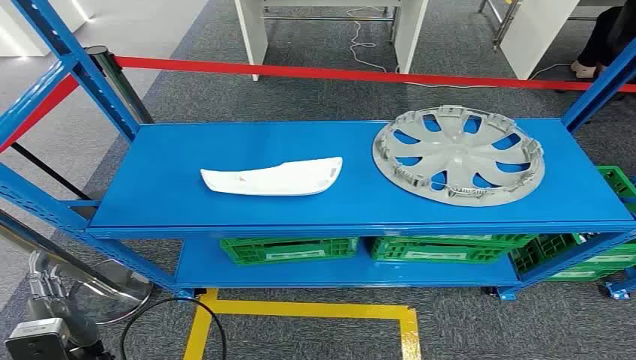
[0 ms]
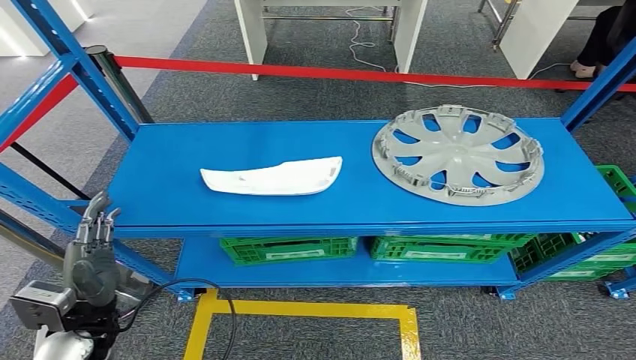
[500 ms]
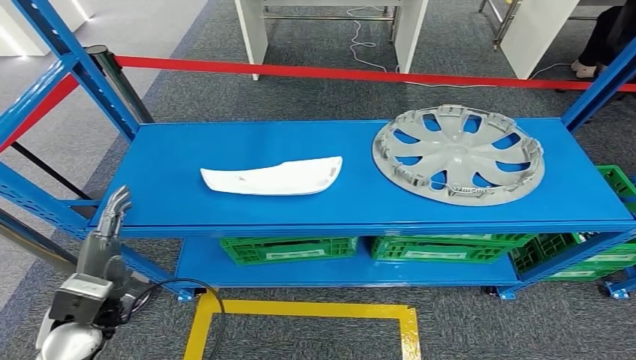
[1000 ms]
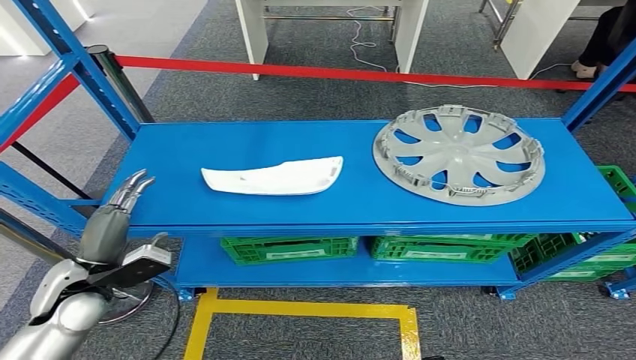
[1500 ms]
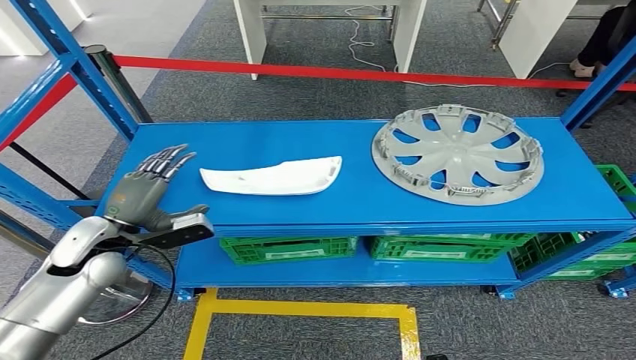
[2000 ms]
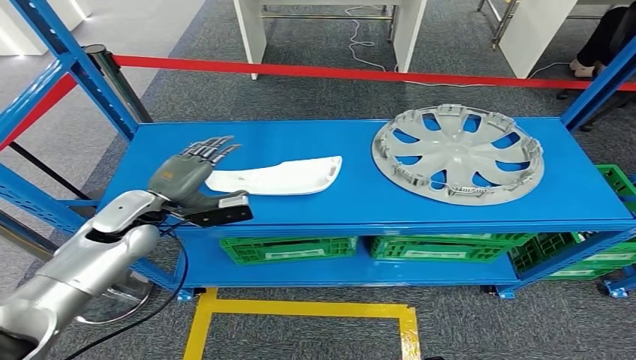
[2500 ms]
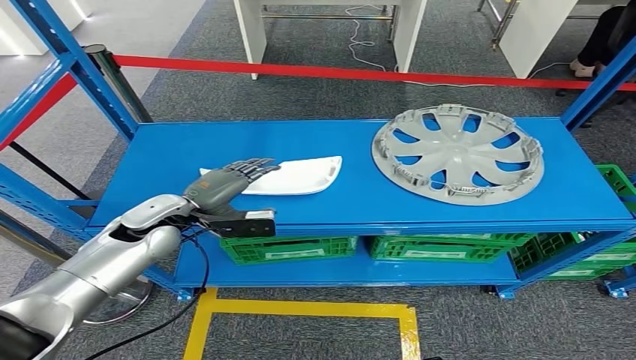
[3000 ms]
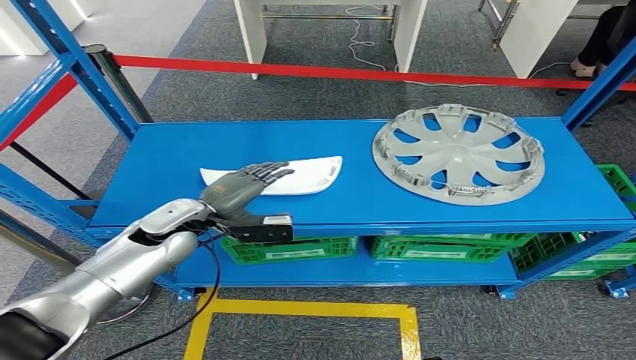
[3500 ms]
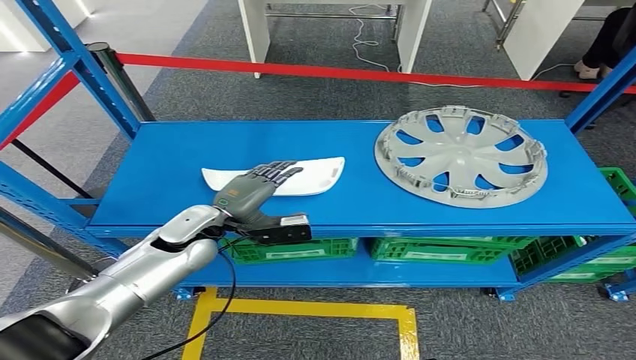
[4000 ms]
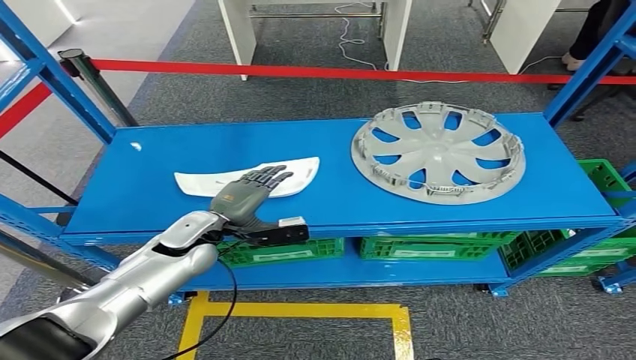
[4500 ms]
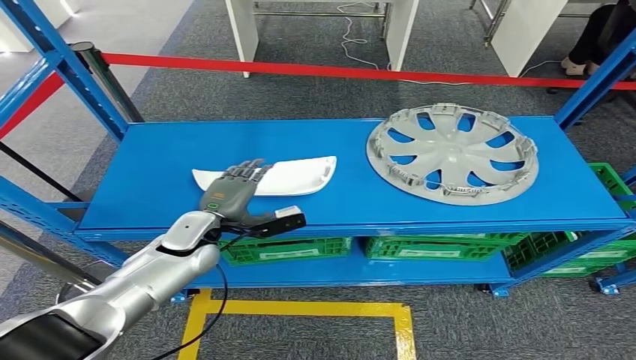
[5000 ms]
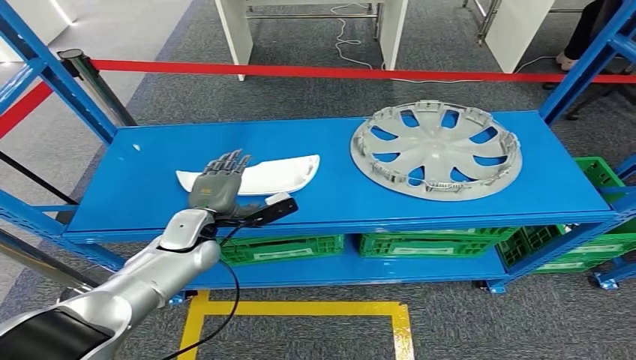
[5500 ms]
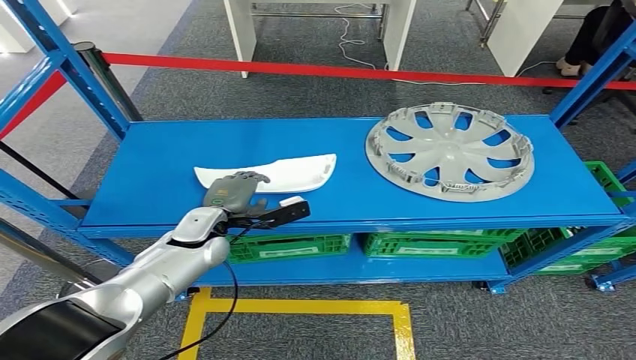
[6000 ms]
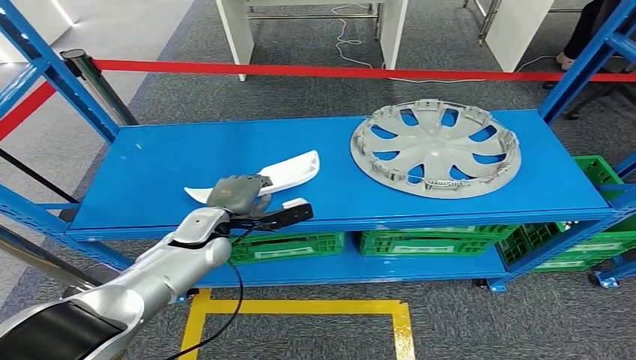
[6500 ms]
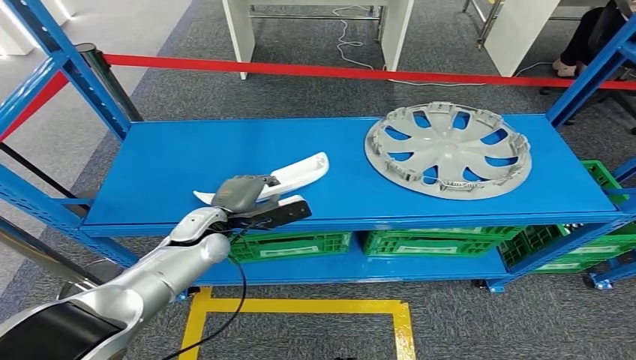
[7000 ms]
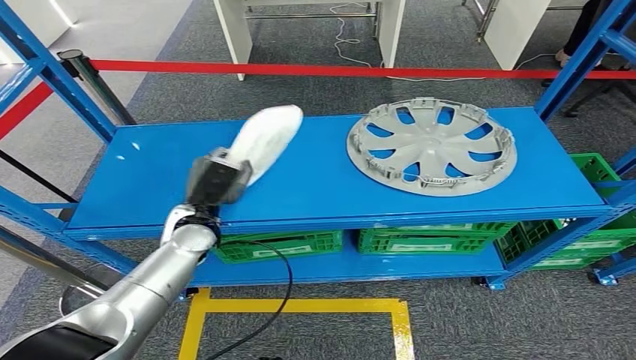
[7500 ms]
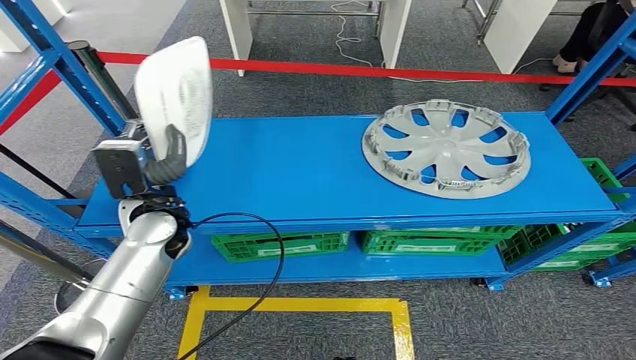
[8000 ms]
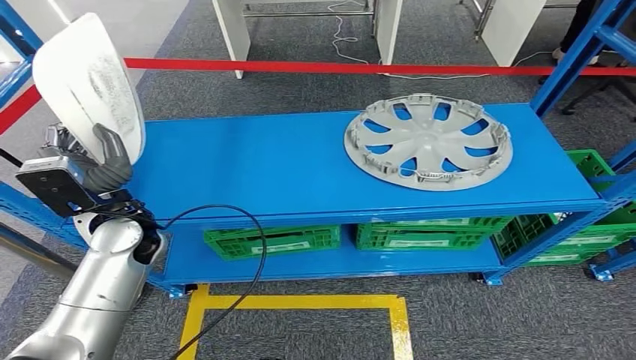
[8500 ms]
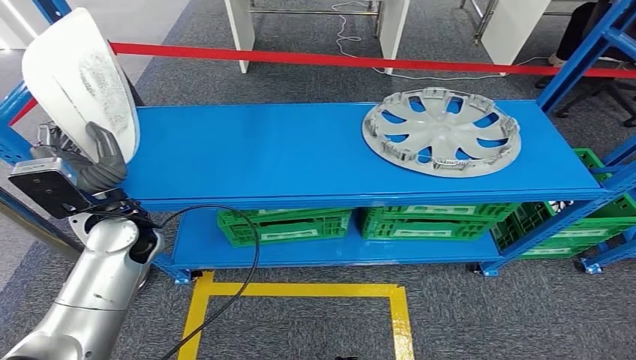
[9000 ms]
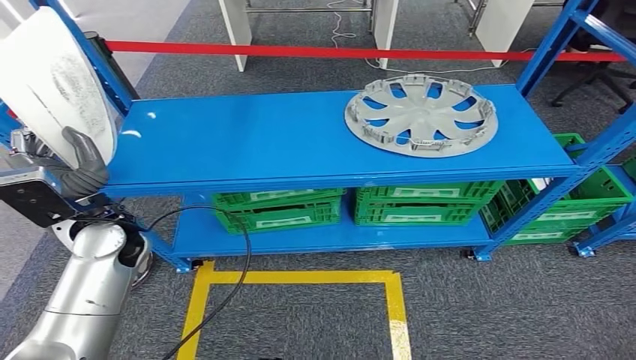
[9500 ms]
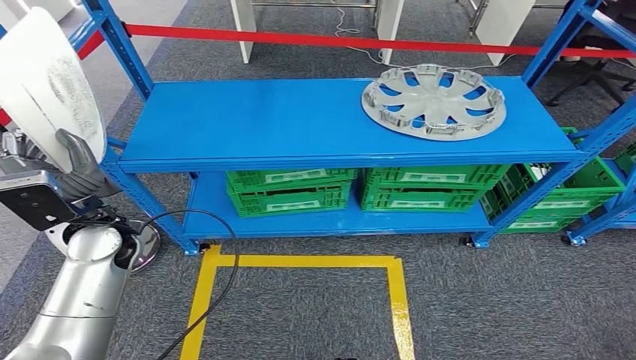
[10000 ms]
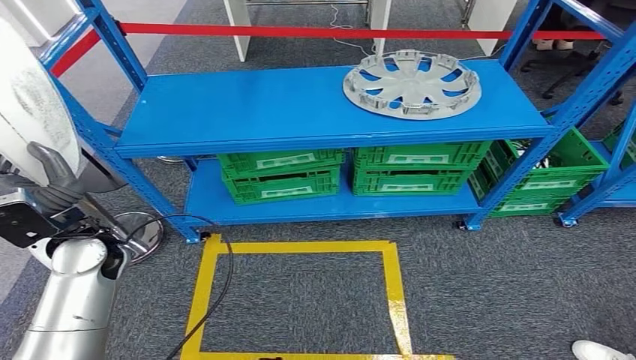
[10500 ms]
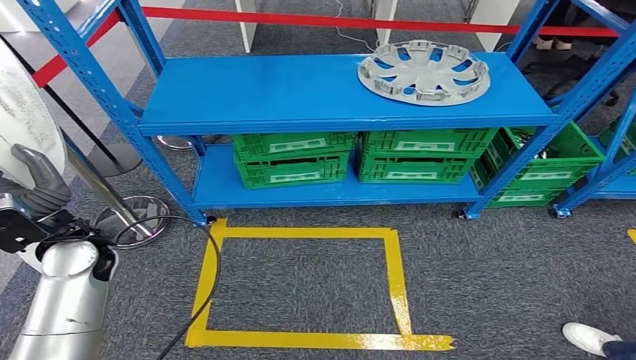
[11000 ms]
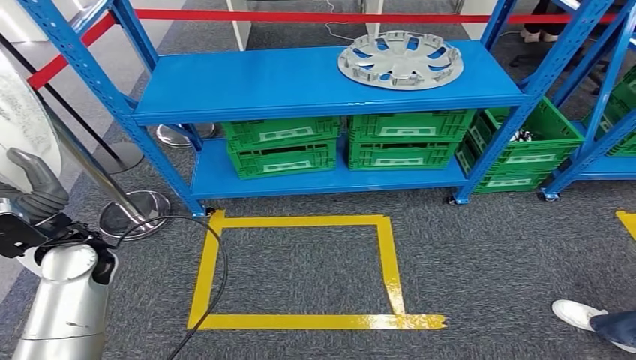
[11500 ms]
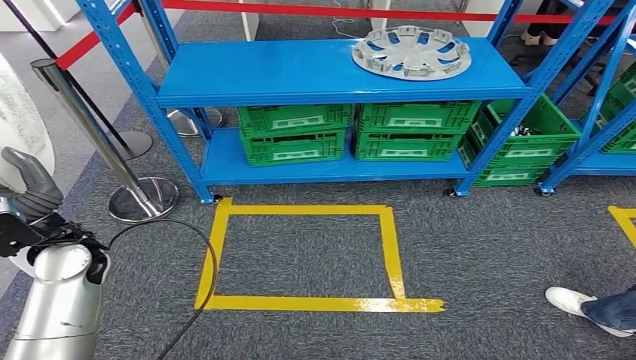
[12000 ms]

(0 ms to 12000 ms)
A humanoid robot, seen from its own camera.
Step, 0 ms - 10000 ms: Pick up the small component from the shelf.

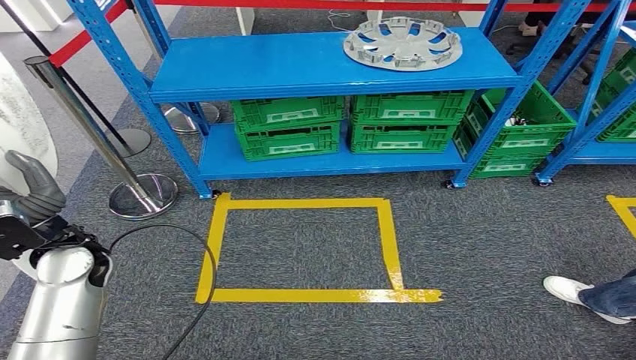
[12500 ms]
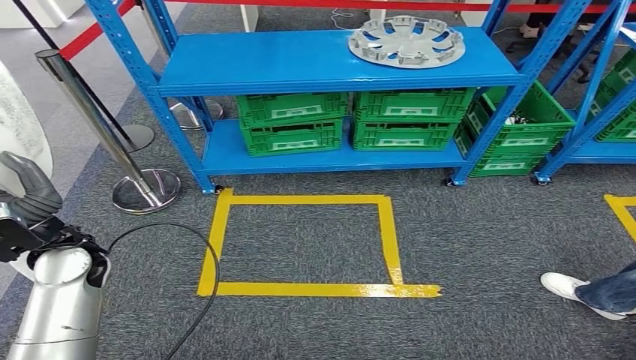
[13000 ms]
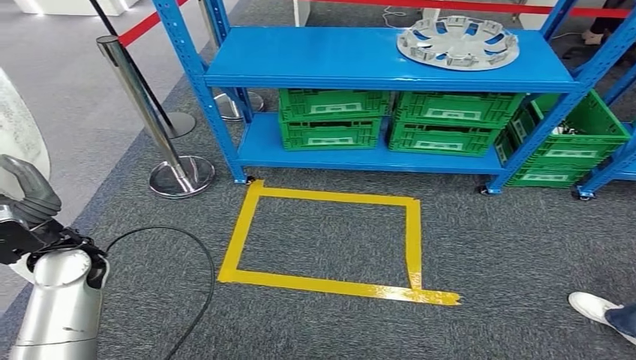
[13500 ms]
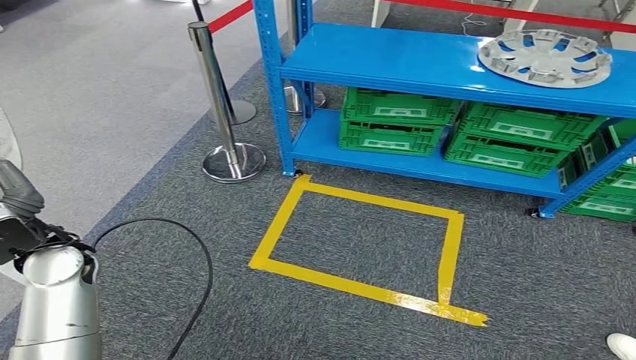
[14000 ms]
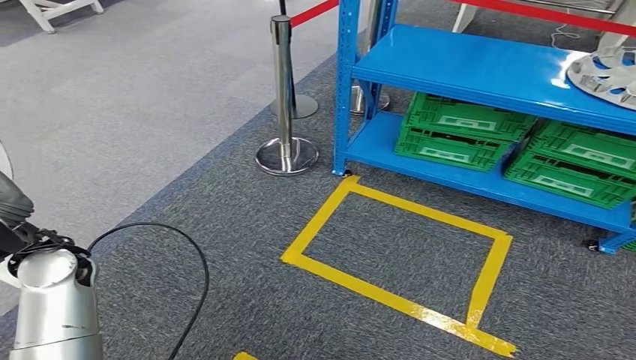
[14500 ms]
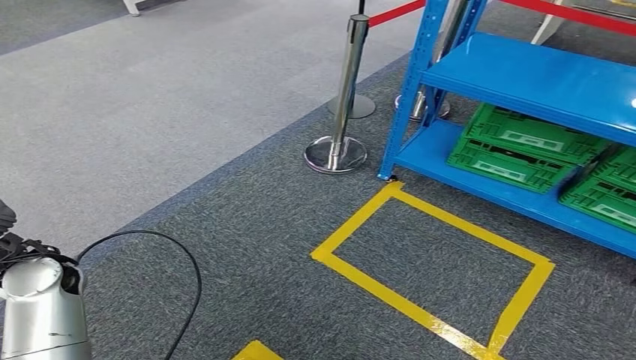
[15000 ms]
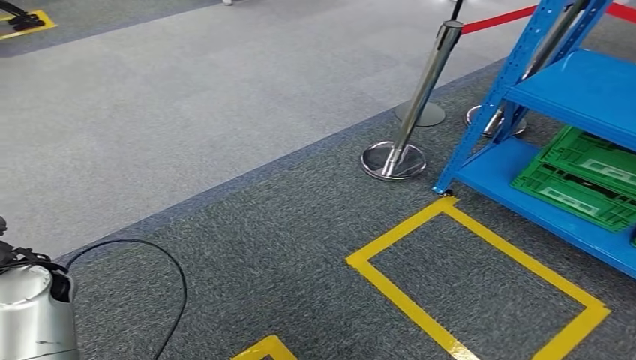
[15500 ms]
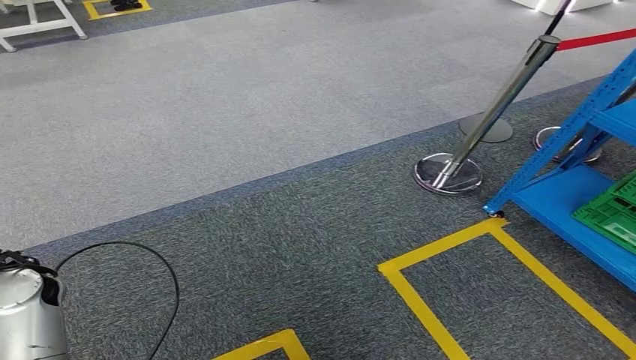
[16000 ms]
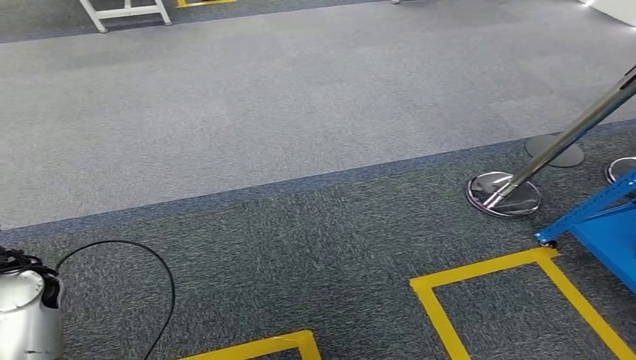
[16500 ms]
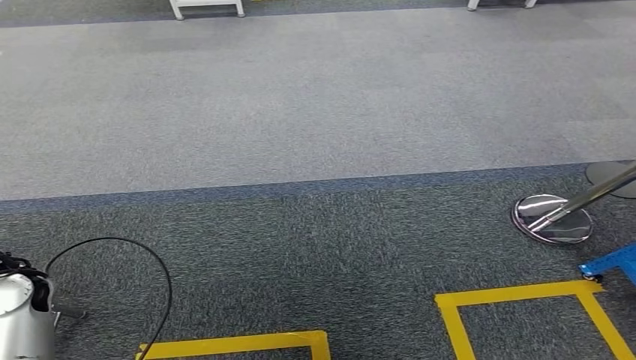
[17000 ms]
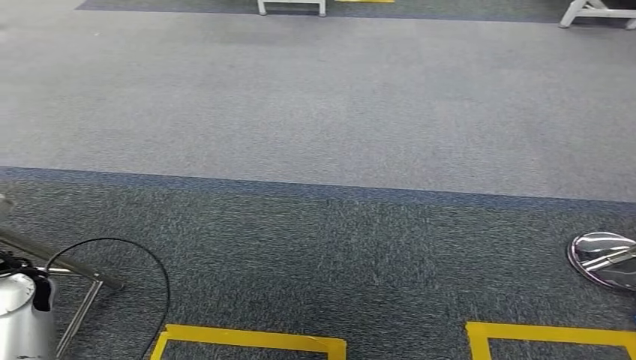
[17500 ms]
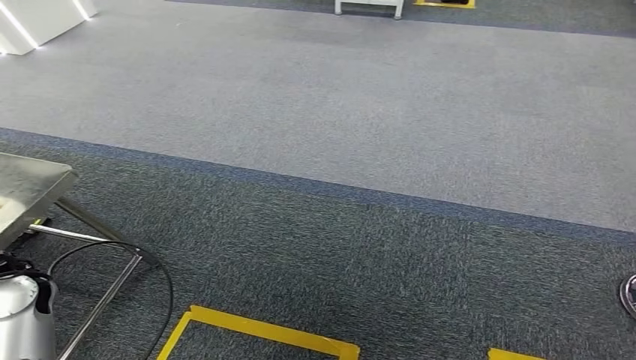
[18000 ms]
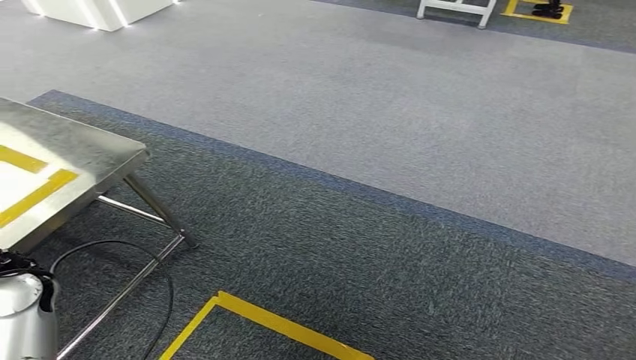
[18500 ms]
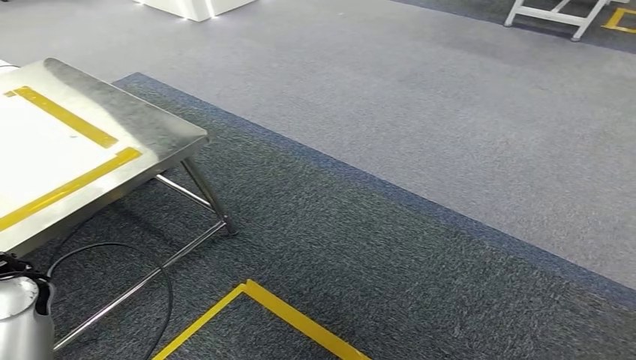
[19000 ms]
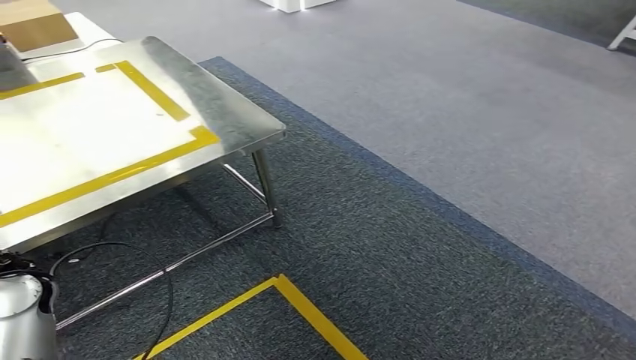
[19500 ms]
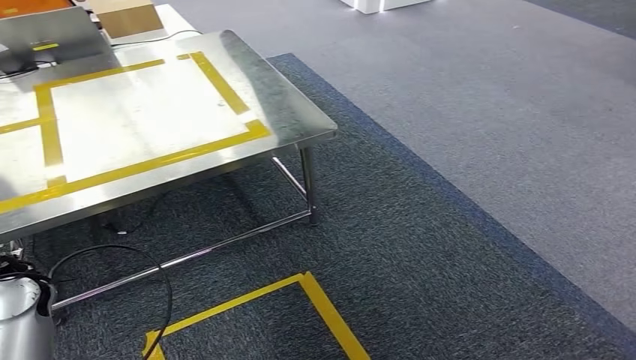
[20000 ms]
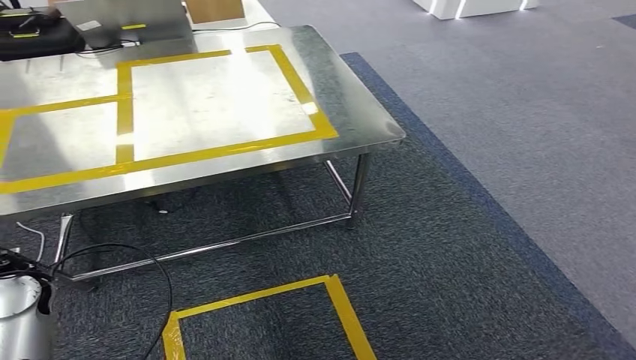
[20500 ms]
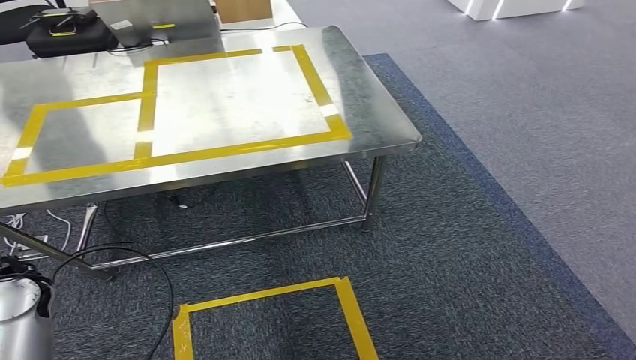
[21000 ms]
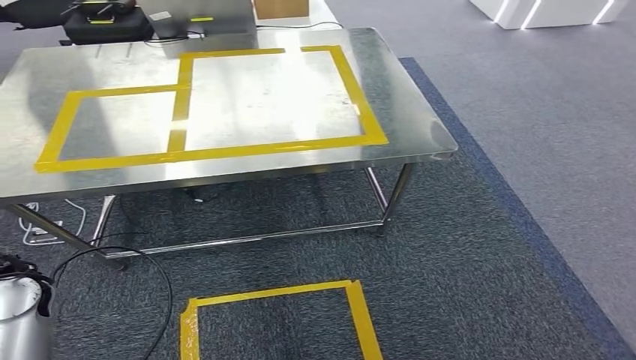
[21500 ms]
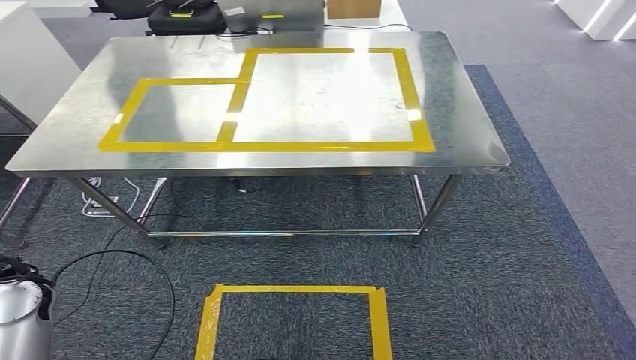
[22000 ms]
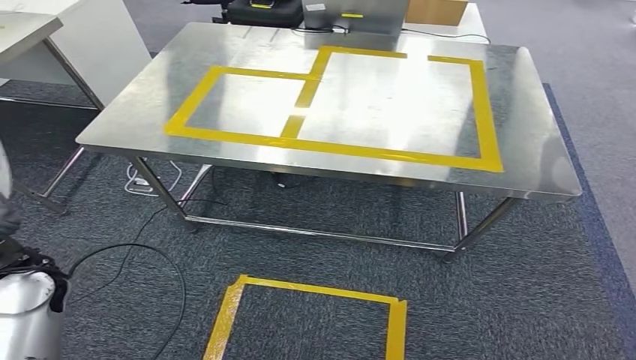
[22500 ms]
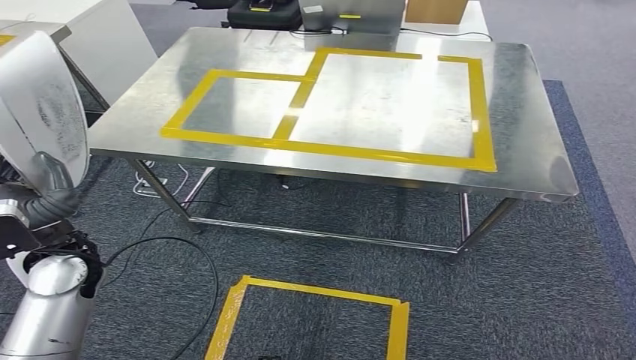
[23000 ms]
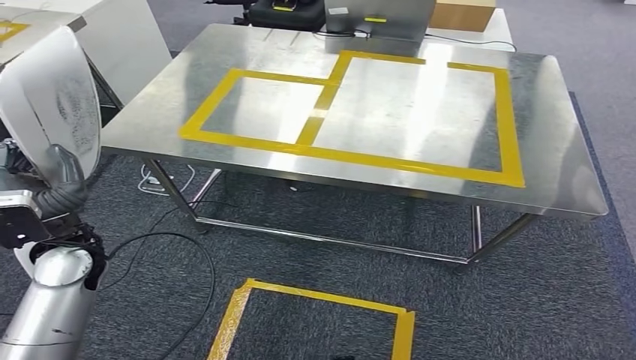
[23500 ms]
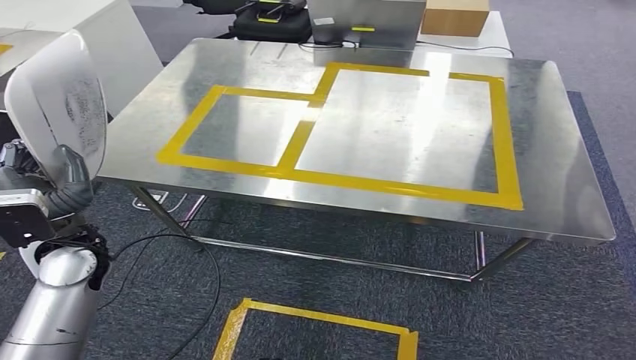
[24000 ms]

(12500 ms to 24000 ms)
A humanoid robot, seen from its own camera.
Step, 12500 ms - 23500 ms: Move the small component to the workbench.
